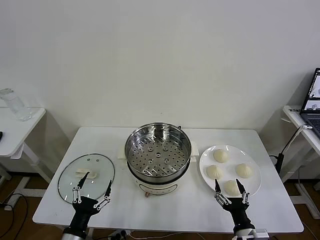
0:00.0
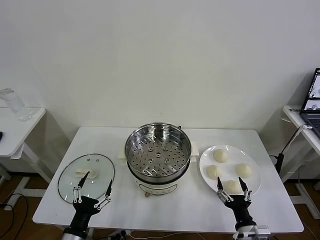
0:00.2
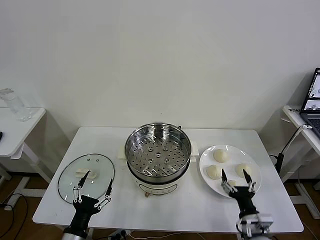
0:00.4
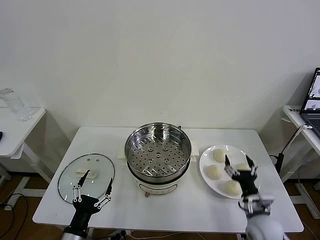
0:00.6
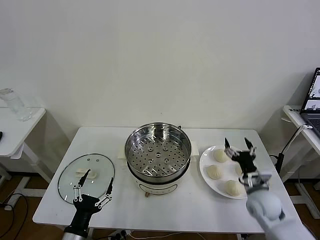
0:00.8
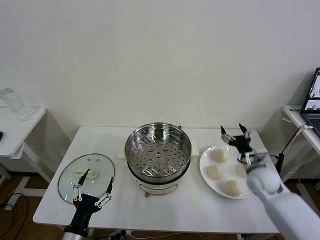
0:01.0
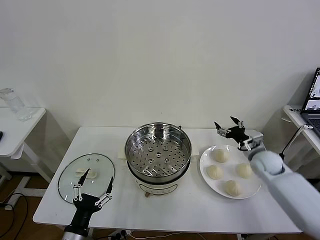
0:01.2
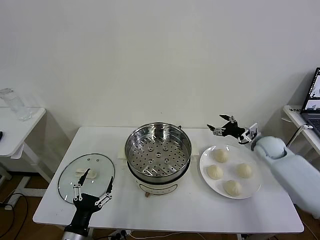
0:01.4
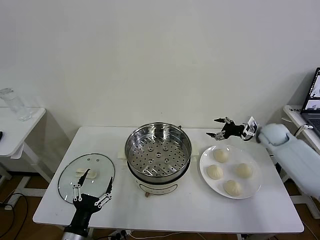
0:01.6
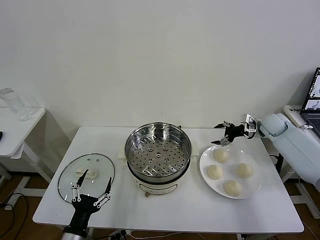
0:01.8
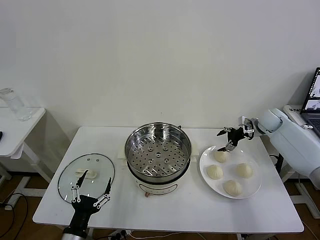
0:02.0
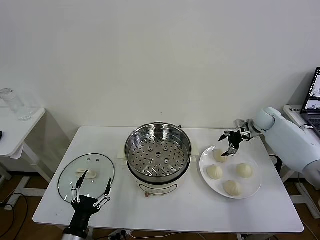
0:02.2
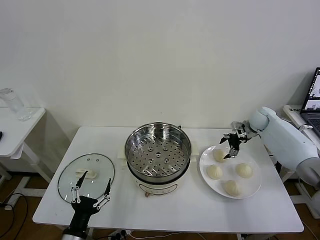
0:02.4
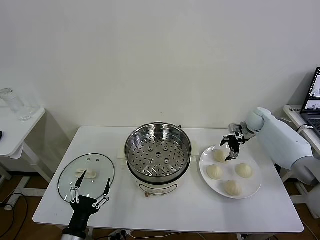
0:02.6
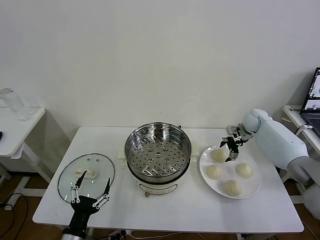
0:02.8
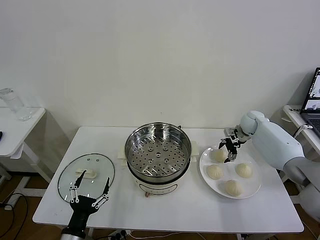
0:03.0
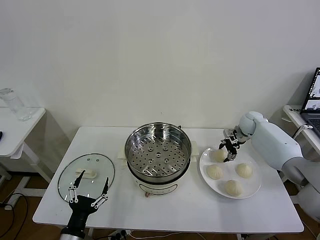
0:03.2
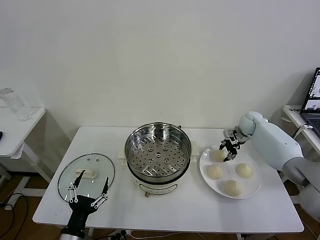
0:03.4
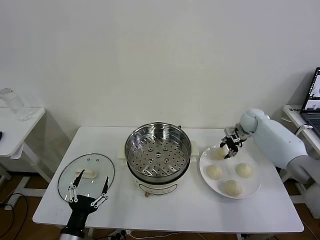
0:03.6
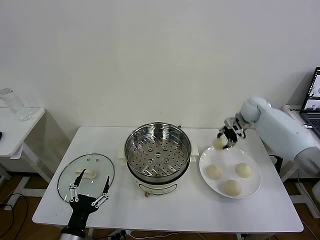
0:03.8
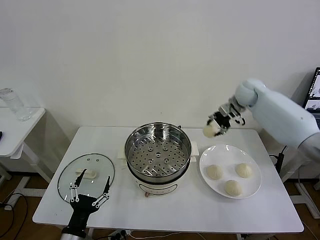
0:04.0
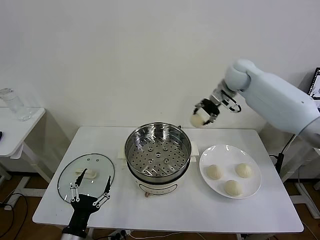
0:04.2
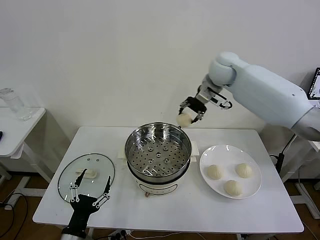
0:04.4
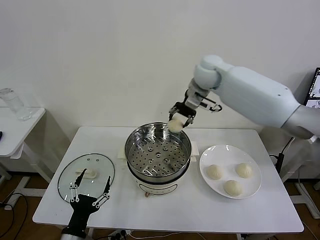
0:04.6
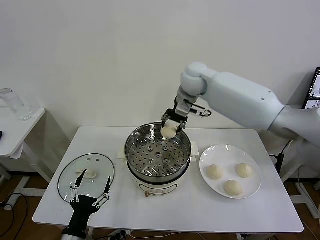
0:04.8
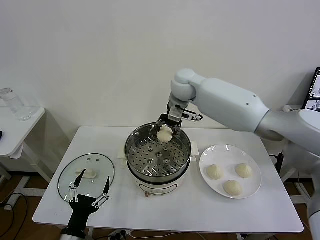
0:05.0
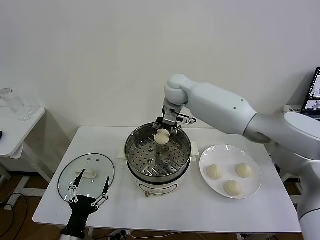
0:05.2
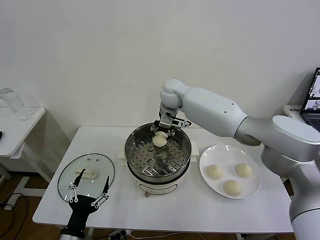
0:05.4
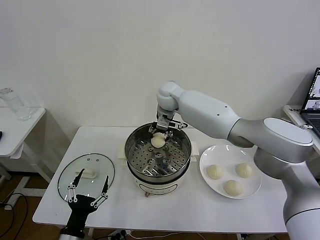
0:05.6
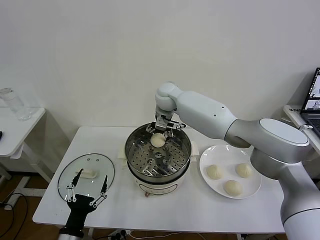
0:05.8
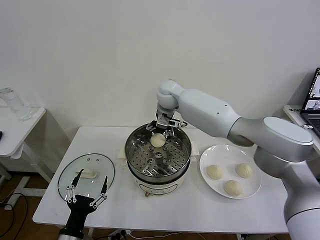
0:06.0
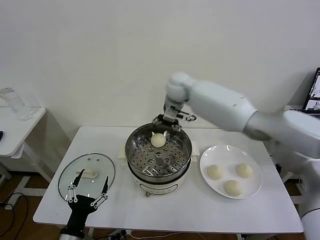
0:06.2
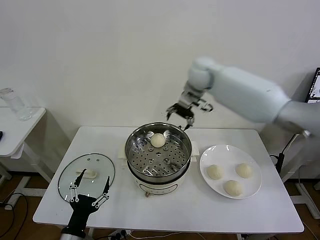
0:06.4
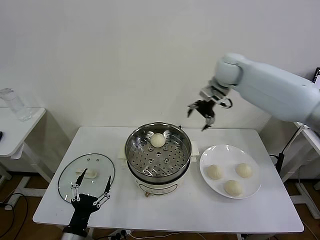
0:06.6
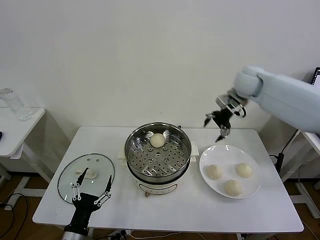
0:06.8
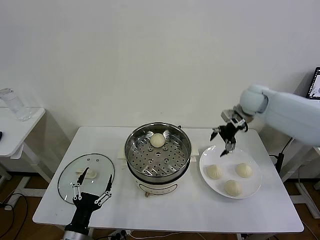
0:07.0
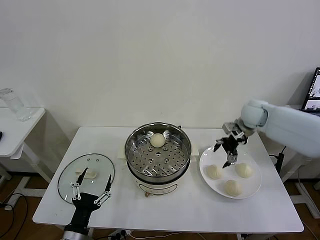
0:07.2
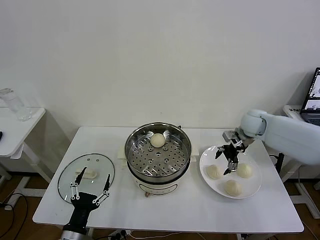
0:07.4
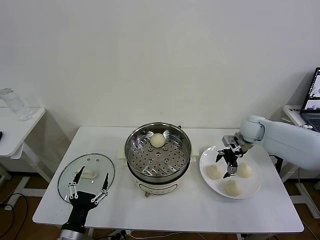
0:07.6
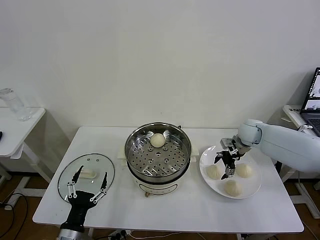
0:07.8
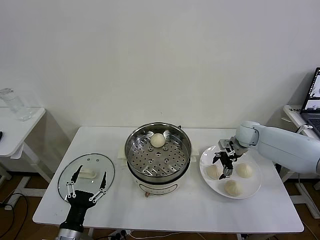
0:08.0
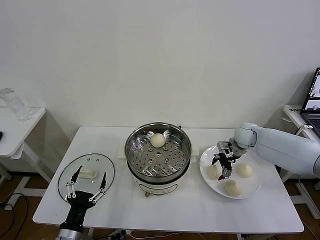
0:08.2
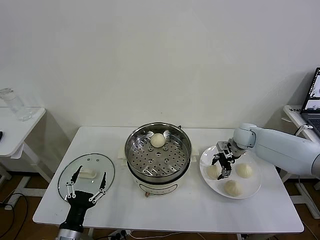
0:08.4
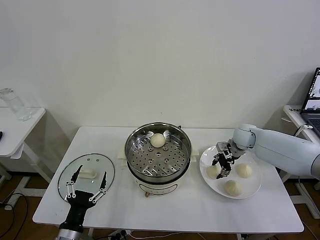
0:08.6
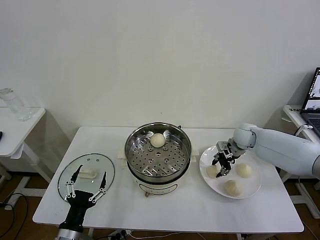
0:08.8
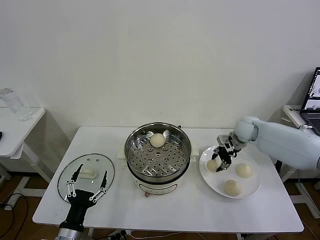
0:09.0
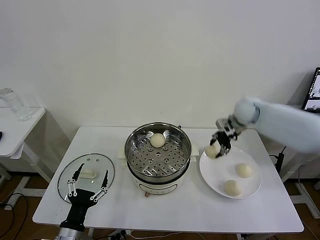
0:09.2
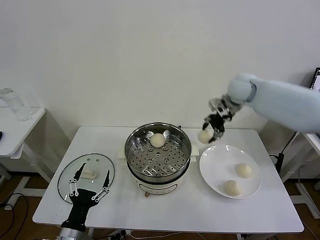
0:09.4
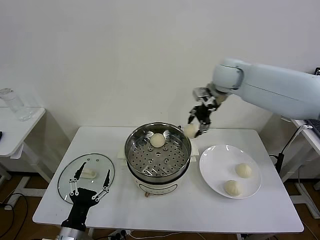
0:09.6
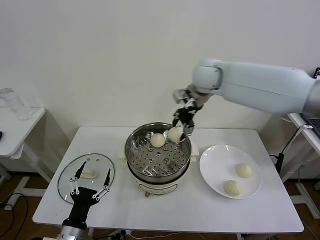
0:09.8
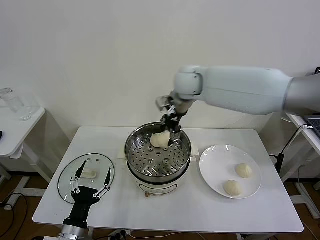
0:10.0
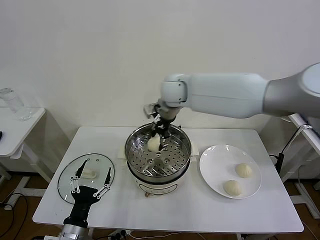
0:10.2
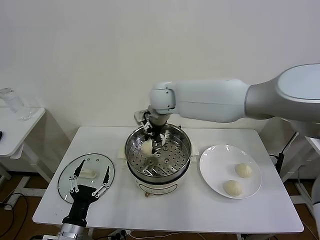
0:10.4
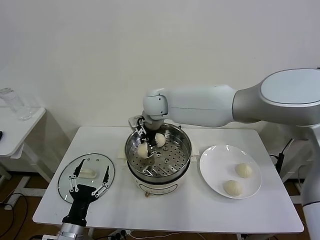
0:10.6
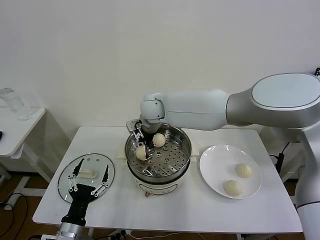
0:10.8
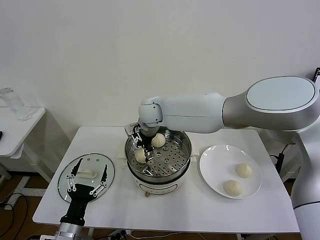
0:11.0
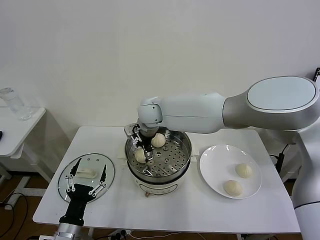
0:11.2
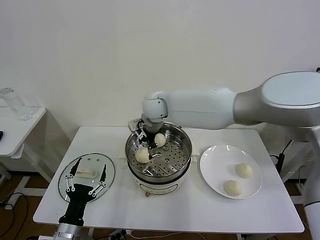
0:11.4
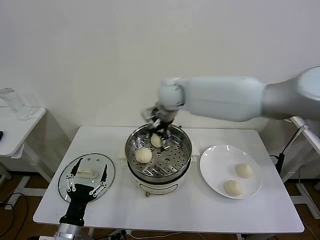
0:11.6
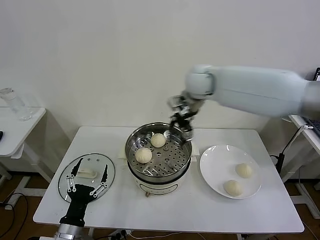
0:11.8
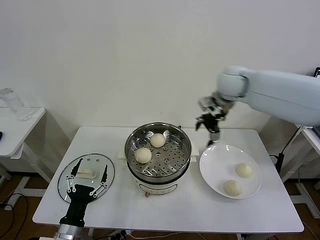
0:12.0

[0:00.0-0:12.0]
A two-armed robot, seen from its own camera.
Task of the whole recording: take steamed baozi put them in steamer then cover it.
Step, 0:00.0 to 0:03.4: Grasp the baozi in the plate with right gripper.
Step, 0:03.6 to 0:05.8: Place the baozi on the steamer with right gripper.
Step, 0:06.2 to 0:08.6: Grasp the baozi in the plate with right gripper.
Step, 0:08.8 to 0:11.2: Place the baozi on the steamer with right gripper.
0:01.6 to 0:03.0: The right gripper moves forward and to the left, approximately 10 cm.
0:03.0 to 0:04.4: The right gripper moves upward and to the left, about 35 cm, and closes.
0:04.4 to 0:06.0: The right gripper goes approximately 15 cm to the left and downward, and opens.
0:06.0 to 0:07.6: The right gripper shifts roughly 35 cm to the right and downward.
0:07.6 to 0:09.0: The right gripper closes.
0:09.0 to 0:10.4: The right gripper travels to the left by approximately 30 cm.
0:10.4 to 0:12.0: The right gripper goes roughly 25 cm to the right, and opens.

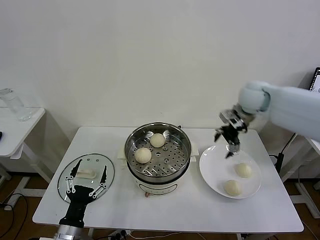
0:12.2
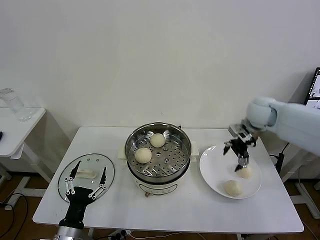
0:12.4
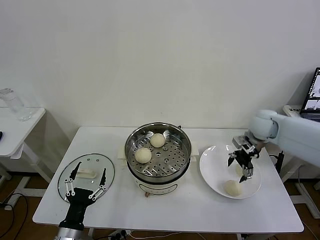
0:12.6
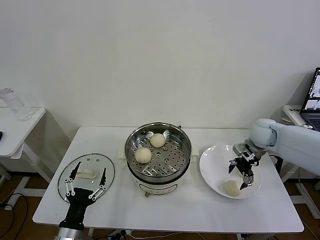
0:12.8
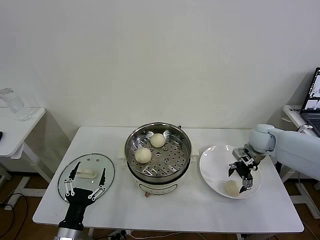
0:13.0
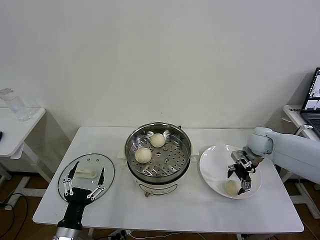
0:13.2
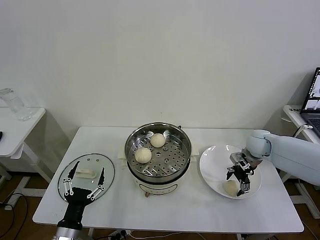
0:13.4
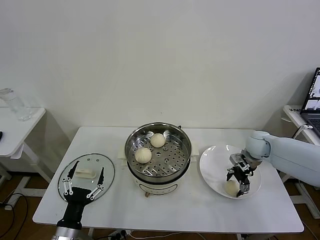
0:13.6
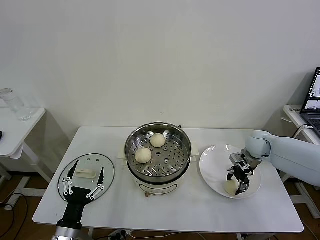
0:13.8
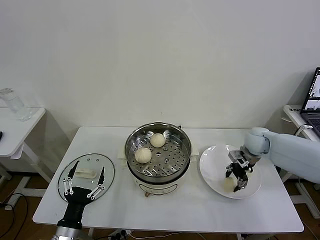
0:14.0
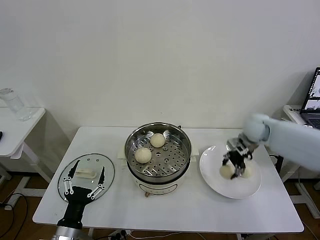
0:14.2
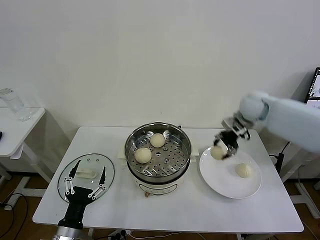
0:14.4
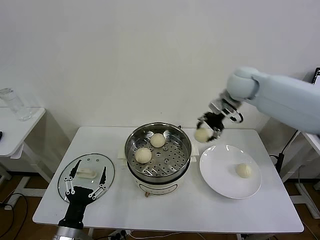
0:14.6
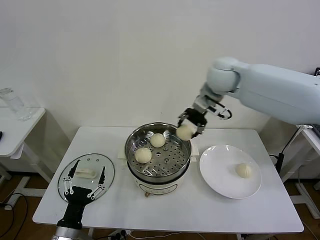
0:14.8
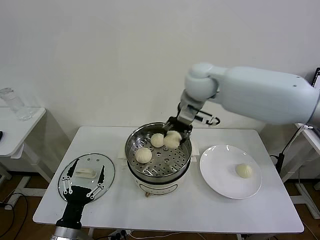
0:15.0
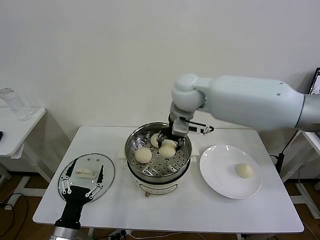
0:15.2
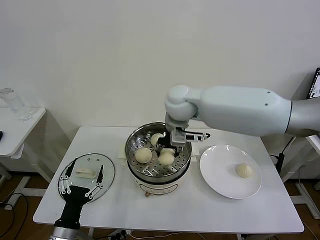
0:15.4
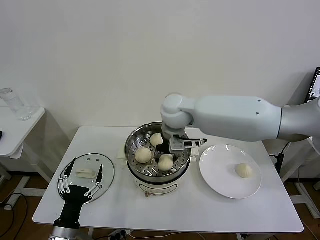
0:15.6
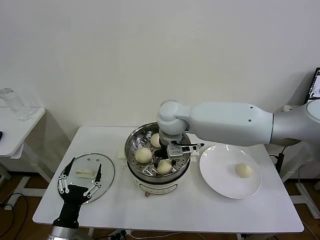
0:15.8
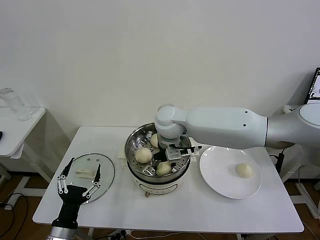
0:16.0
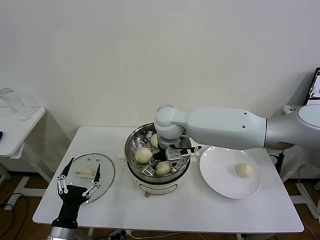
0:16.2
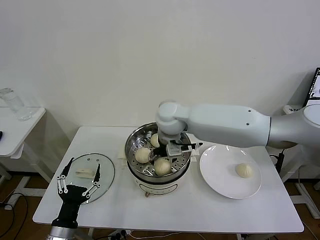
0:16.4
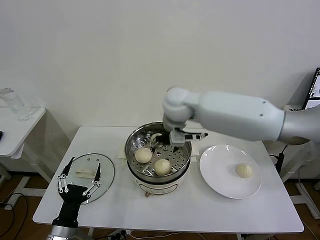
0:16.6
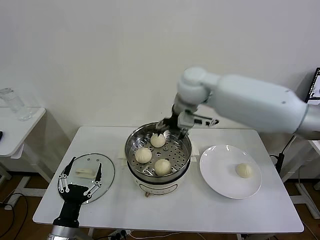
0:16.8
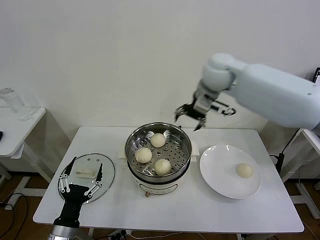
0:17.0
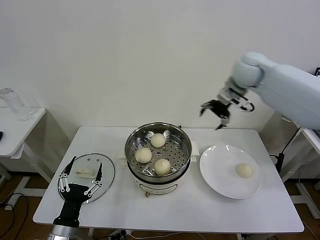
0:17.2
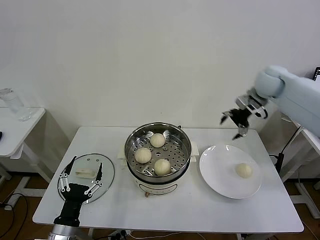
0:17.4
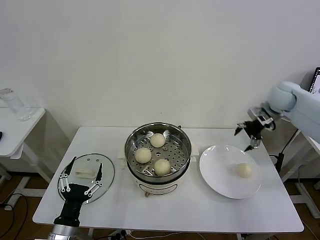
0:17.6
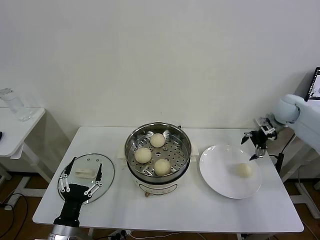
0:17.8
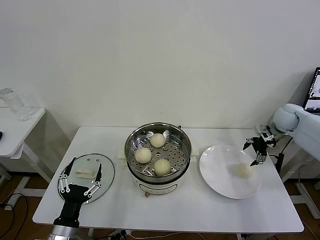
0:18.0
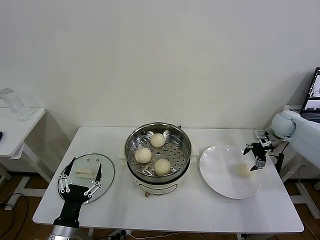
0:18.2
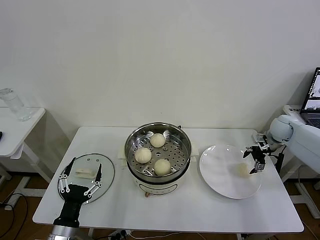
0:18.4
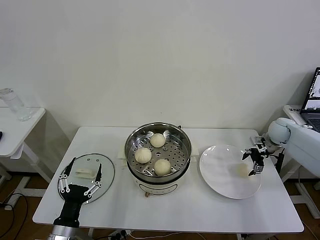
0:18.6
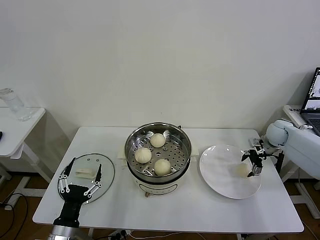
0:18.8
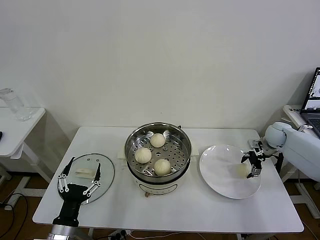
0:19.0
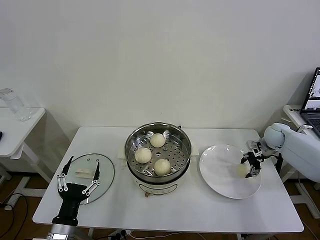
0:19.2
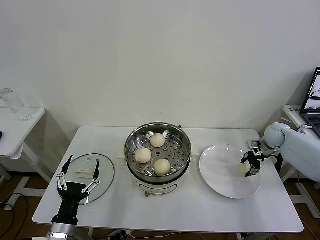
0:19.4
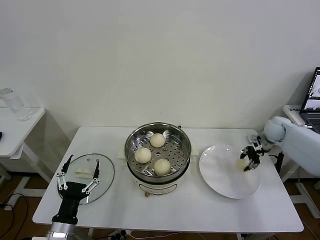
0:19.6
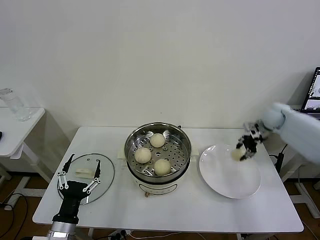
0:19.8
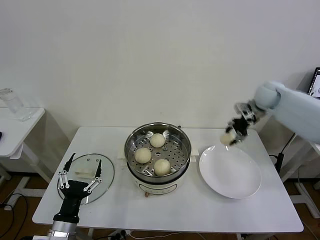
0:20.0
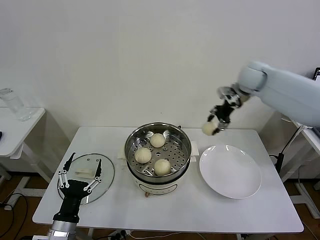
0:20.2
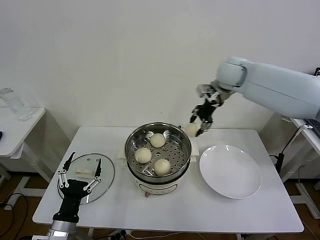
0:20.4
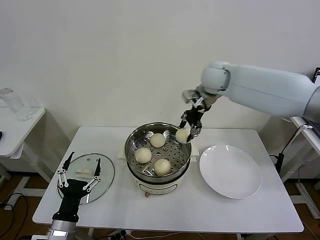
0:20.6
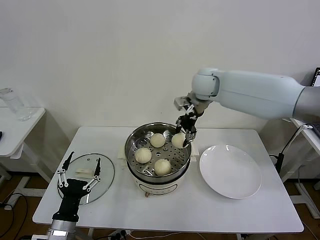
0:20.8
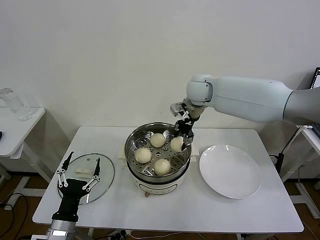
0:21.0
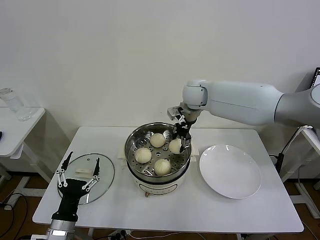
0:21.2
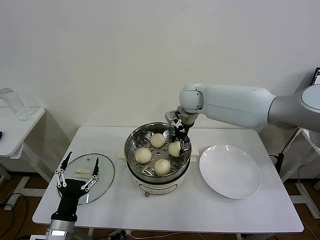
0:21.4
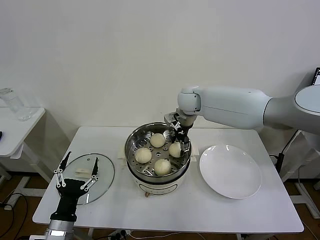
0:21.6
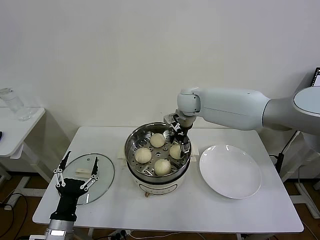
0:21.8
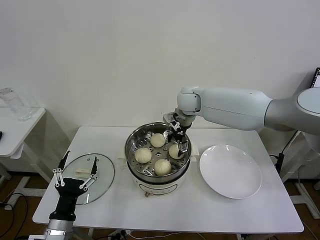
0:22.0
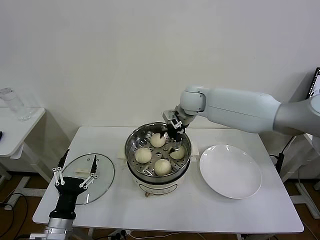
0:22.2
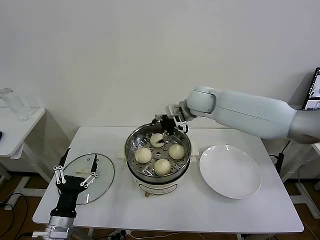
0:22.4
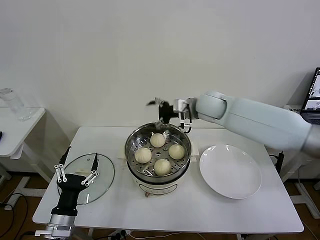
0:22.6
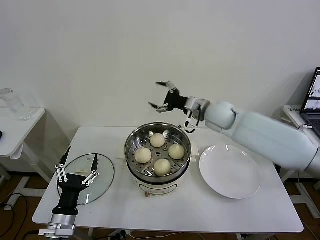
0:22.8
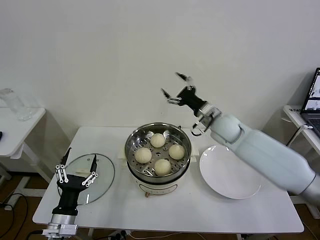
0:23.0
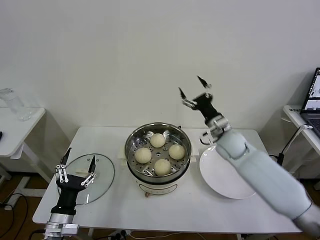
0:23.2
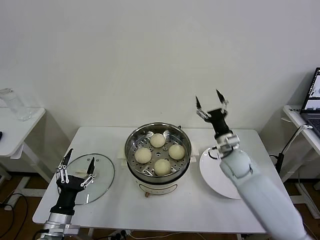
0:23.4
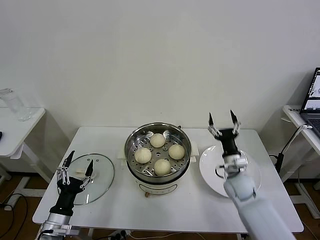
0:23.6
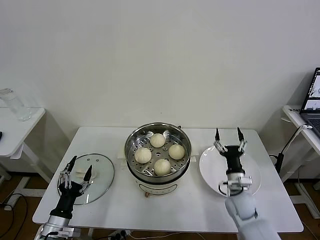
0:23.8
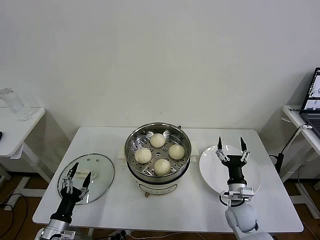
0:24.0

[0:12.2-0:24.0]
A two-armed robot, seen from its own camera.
Task of the whole recording: take steamed baozi put them in steamer then cover it.
Step, 0:12.2 to 0:13.8: Grasp the baozi in the plate with right gripper.
Step, 0:14.0 to 0:16.4: Place the baozi on the steamer with right gripper.
Step, 0:16.6 to 0:19.4: Grasp the baozi in the plate with right gripper.
Step, 0:19.6 to 0:22.0: Place the baozi on the steamer with right gripper.
0:12.2 to 0:13.6: The right gripper goes approximately 15 cm downward.
0:13.6 to 0:15.2: The right gripper goes about 35 cm to the left and upward, and closes up.
0:15.2 to 0:16.6: The right gripper goes downward and returns, approximately 10 cm each way, and opens its fingers.
0:16.6 to 0:18.2: The right gripper travels to the right by approximately 40 cm.
0:18.2 to 0:19.6: The right gripper closes up.
0:19.6 to 0:21.0: The right gripper shifts approximately 35 cm to the left and upward.
0:21.0 to 0:22.6: The right gripper changes place by approximately 5 cm, and opens up.
0:22.6 to 0:24.0: The left gripper travels downward and to the left by approximately 10 cm. The right gripper heads downward, backward and to the right, covering some 40 cm.
